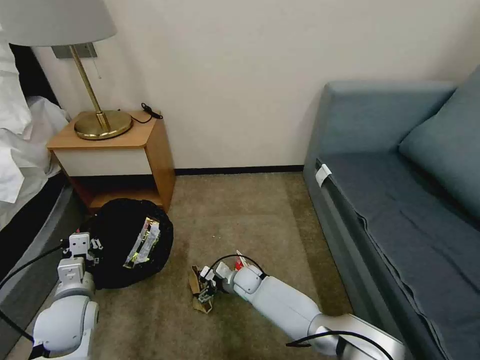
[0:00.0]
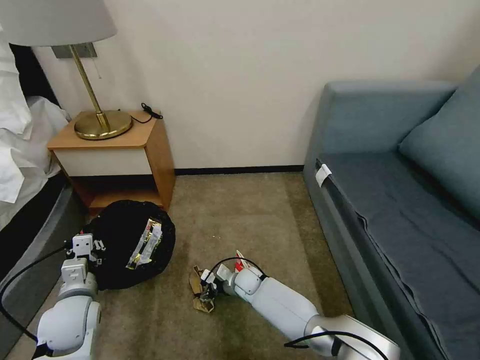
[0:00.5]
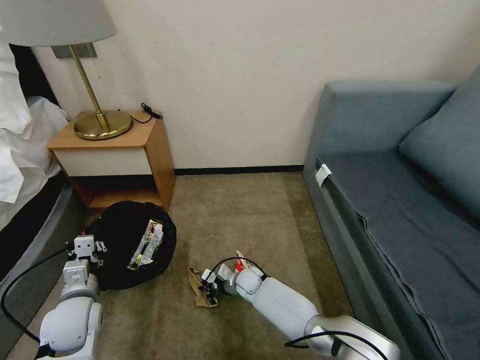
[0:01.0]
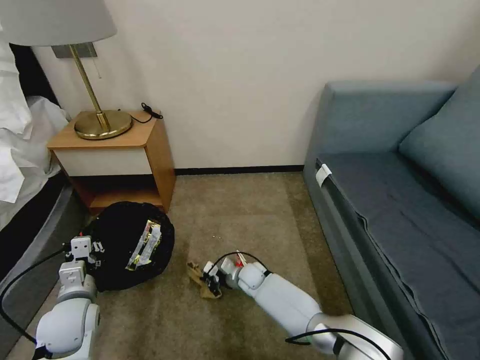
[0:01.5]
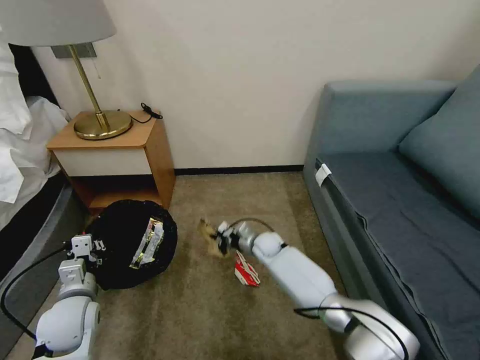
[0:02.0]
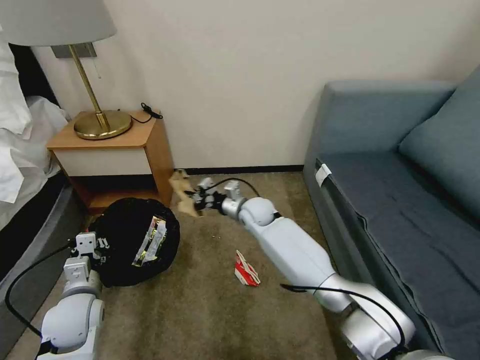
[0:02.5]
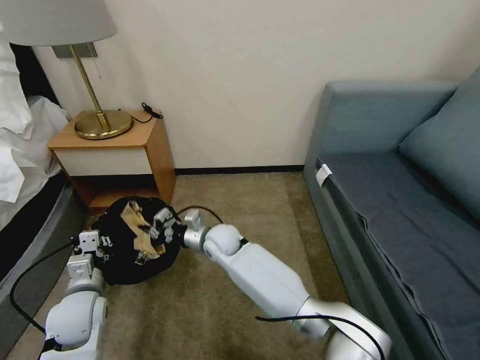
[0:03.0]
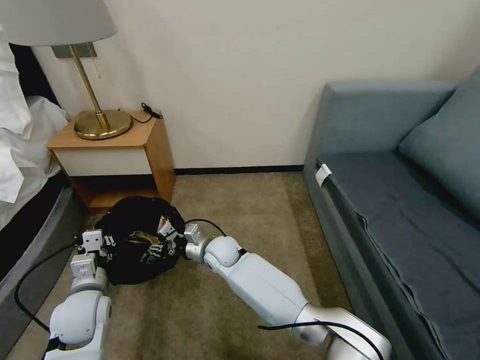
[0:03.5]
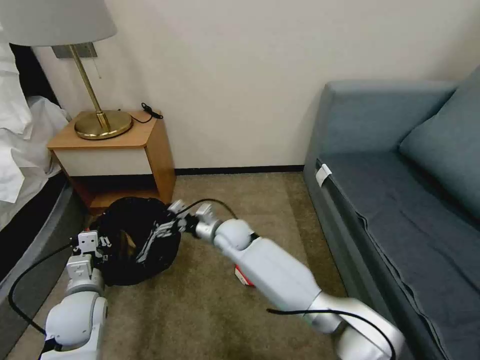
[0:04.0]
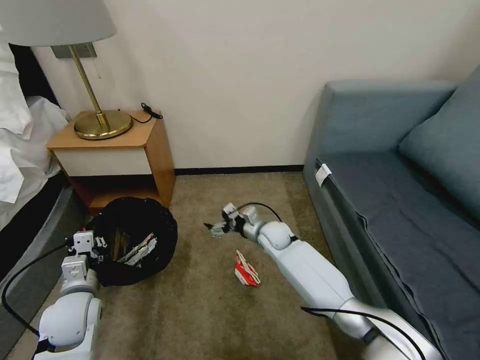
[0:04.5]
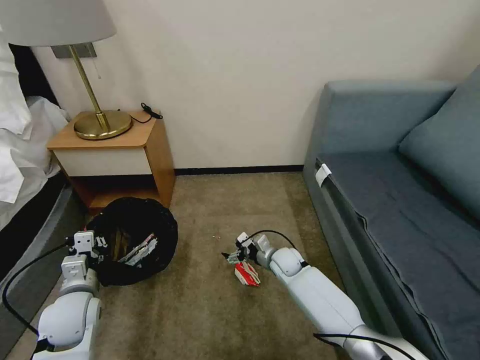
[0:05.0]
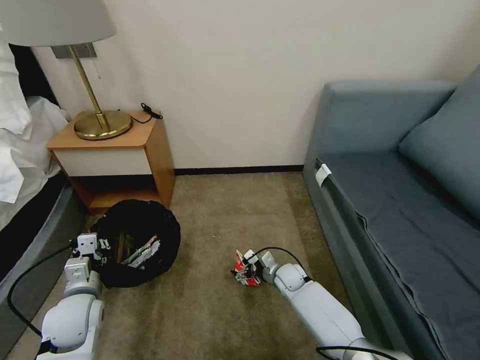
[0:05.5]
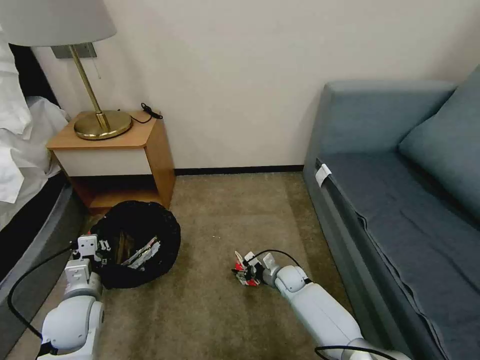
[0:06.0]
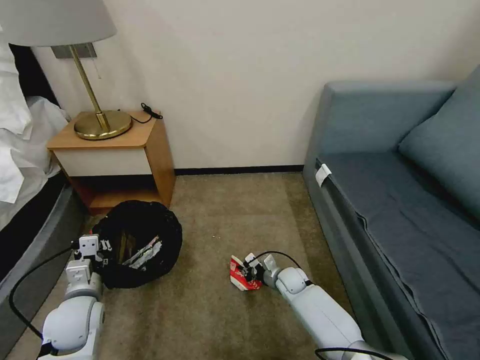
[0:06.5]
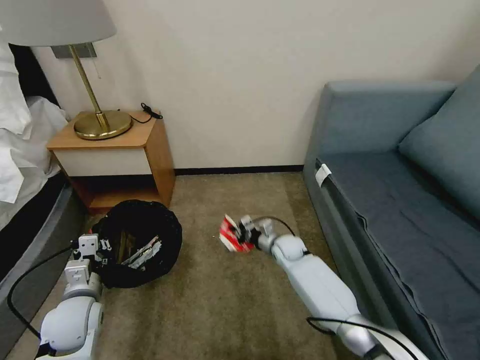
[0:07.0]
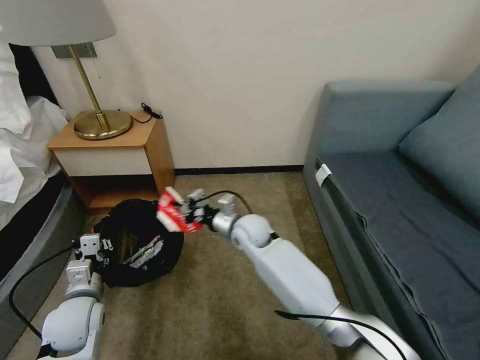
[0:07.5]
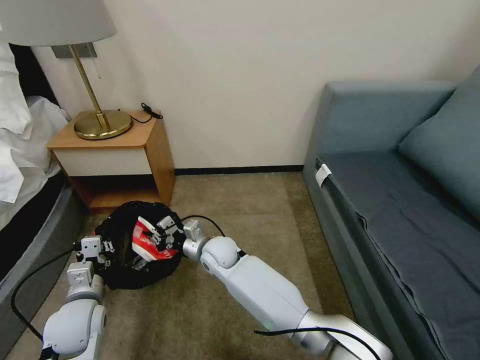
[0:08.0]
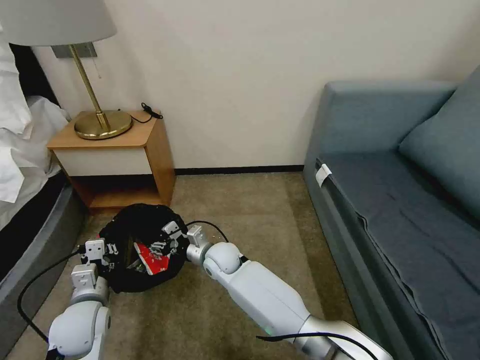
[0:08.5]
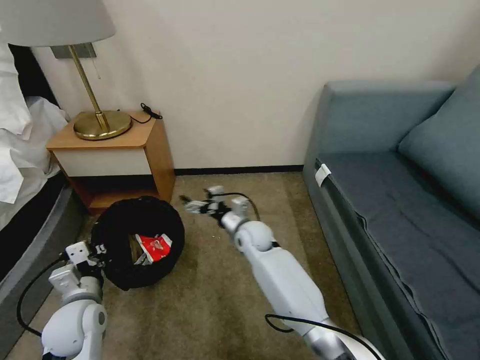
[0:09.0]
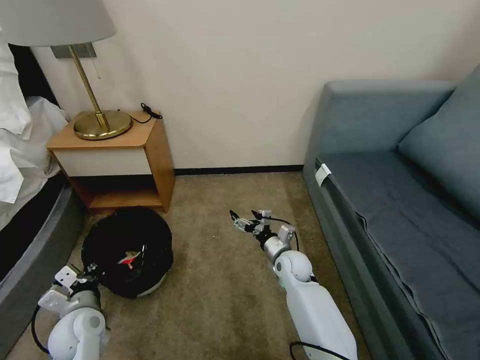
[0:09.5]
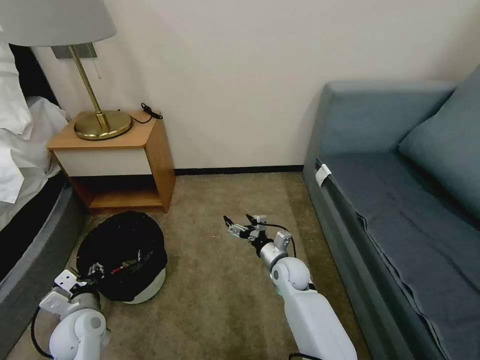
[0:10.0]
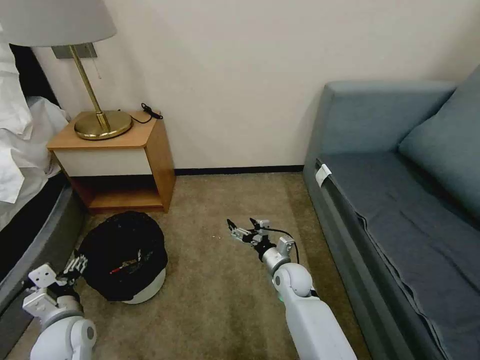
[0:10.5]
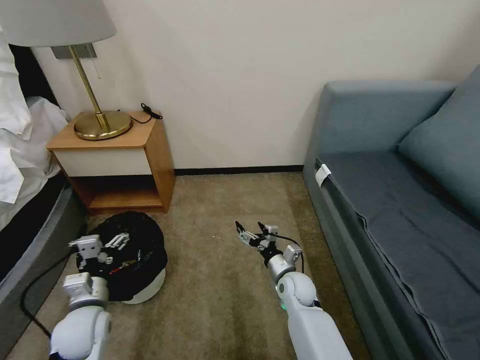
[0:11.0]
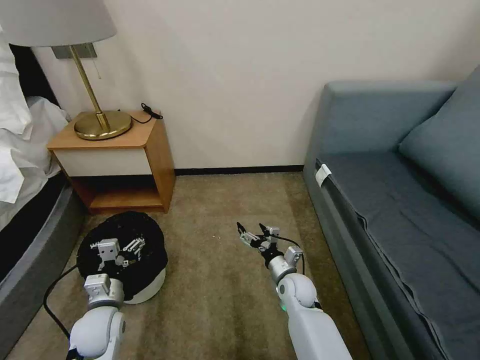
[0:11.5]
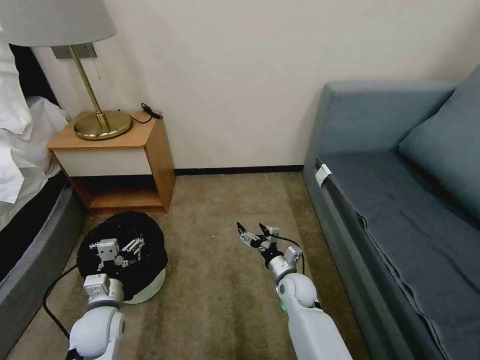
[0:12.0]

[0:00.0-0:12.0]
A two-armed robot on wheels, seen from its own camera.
Task of the whole recording: Pick up the trash bin, then pick up the garbage on the floor and place it into the trash bin.
0:00.0 to 0:02.0: The right gripper shifts about 15 cm forward, upward and to the right, and closes its fingers.
0:02.0 to 0:04.0: The right gripper goes some 15 cm upward and to the left, and opens.
0:04.0 to 0:06.0: The right gripper travels downward and to the right by about 25 cm, and closes.
0:06.0 to 0:08.0: The right gripper moves to the left and upward, about 30 cm, and closes.
0:08.0 to 0:10.0: The left gripper shifts by about 5 cm, and opens. Meanwhile the right gripper is displaced to the right by approximately 20 cm, and opens up.
0:10.0 to 0:12.0: The left gripper opens its fingers.

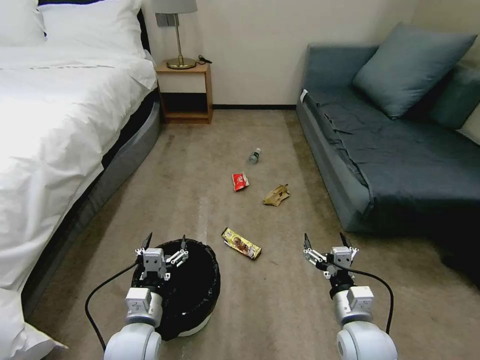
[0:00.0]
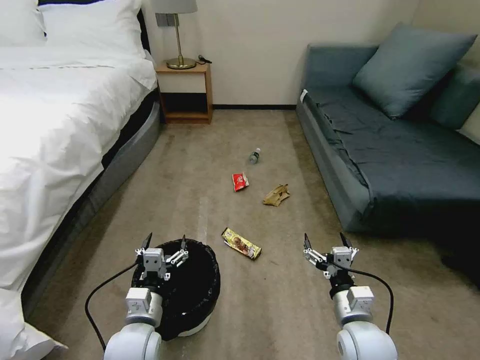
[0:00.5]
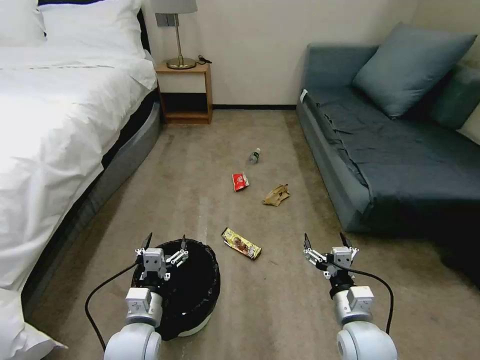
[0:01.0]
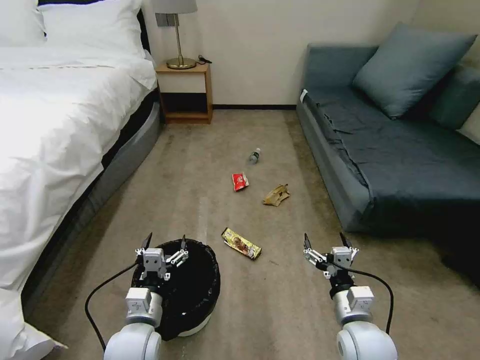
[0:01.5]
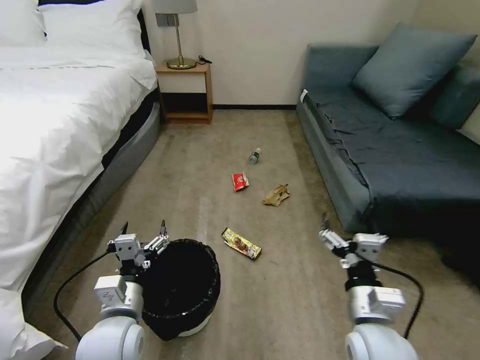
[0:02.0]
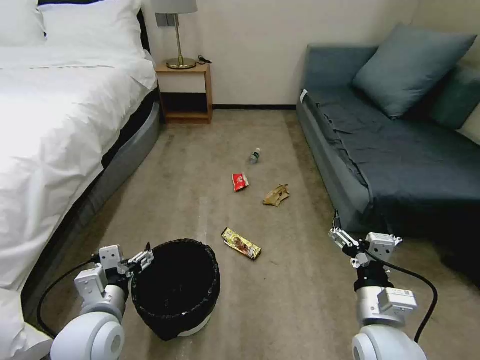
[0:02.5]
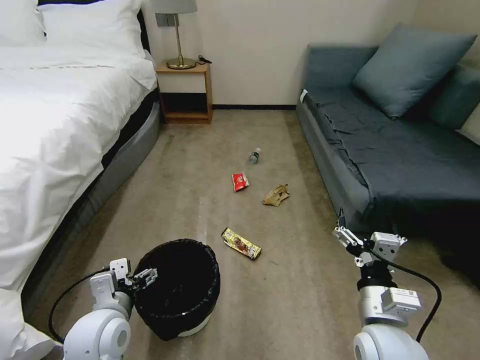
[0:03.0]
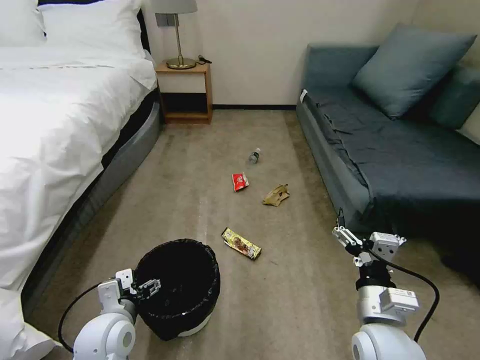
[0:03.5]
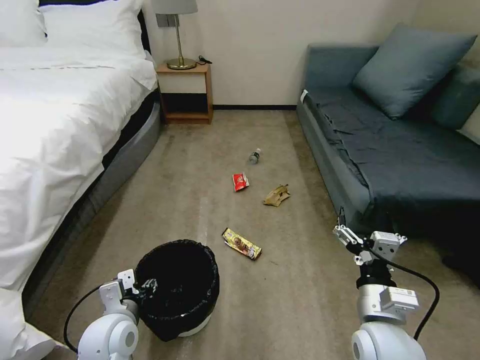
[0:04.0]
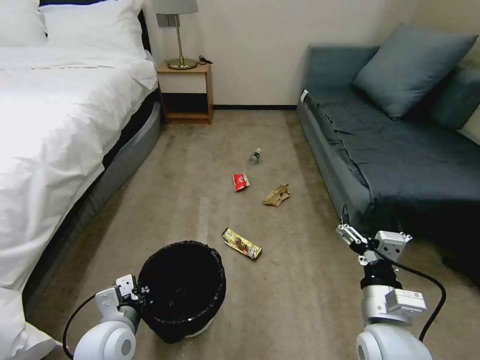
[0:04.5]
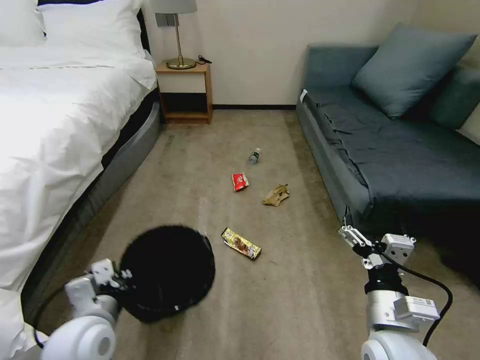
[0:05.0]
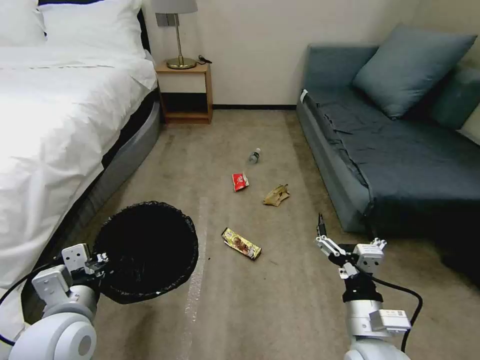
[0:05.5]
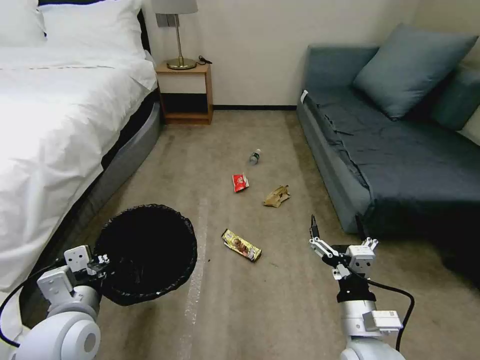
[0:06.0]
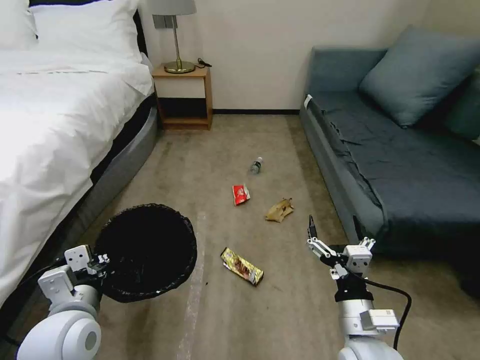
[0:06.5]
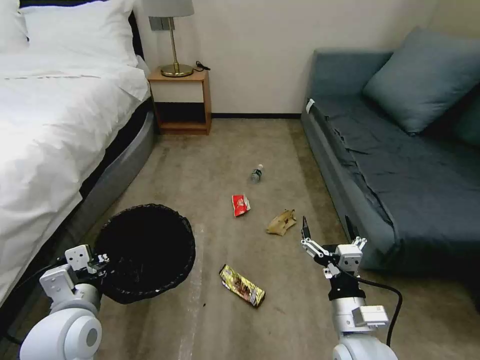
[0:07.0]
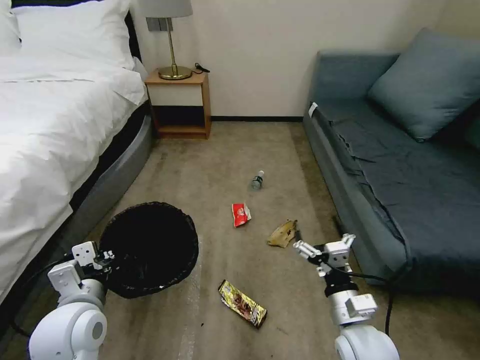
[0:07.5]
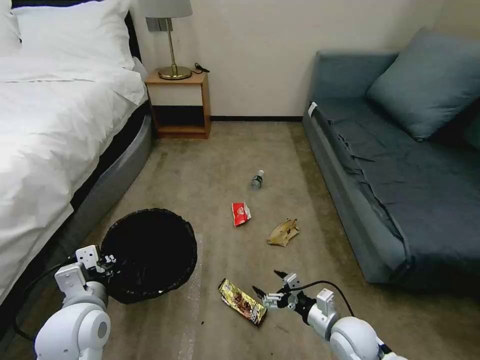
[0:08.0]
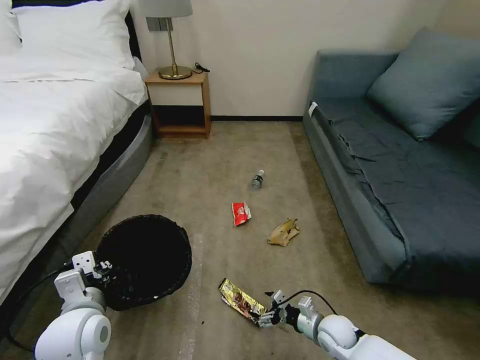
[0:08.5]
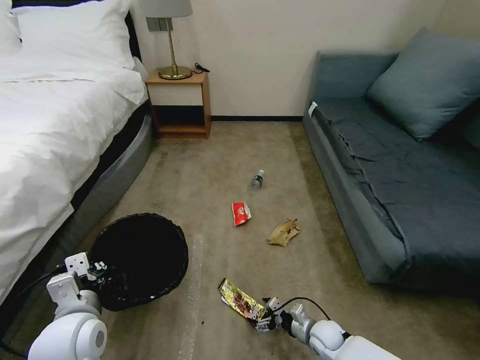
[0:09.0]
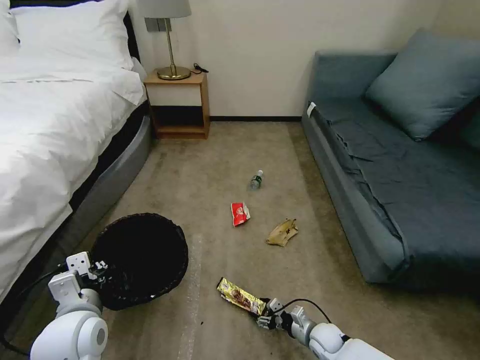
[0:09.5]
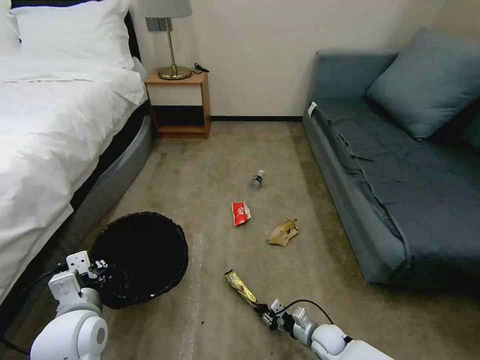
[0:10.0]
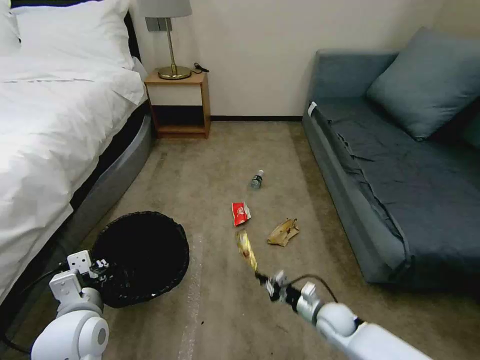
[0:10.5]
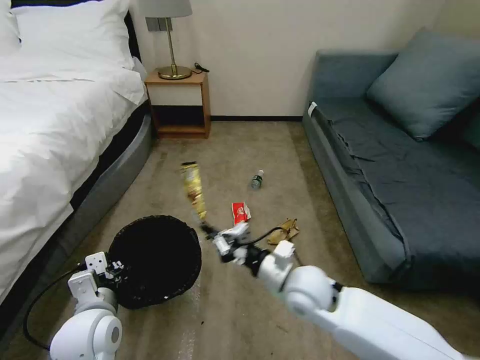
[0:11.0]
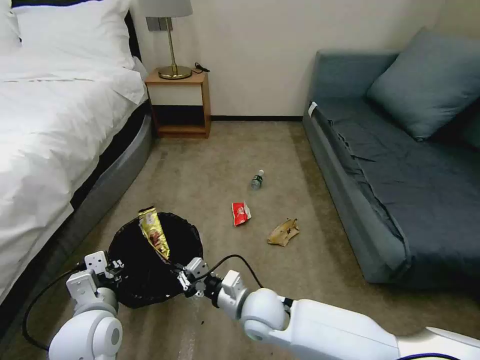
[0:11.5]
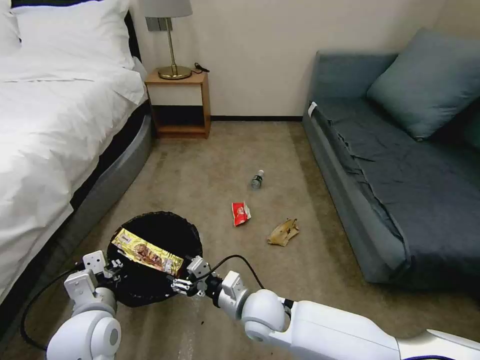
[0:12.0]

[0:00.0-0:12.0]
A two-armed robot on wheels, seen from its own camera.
Task of the whole recording: Pick up the trash bin, then pick up the garbage on the floor and place it into the trash bin.
0:02.0 to 0:04.0: The left gripper ends up about 5 cm from where it was, and closes its fingers.
0:04.0 to 0:06.0: The left gripper heads upward, covering some 10 cm, and closes.
0:06.0 to 0:08.0: The right gripper travels downward and forward by about 15 cm.
0:08.0 to 0:10.0: The right gripper travels downward by some 15 cm, and closes.
0:10.0 to 0:12.0: The right gripper travels upward and to the left by about 30 cm, and opens its fingers.

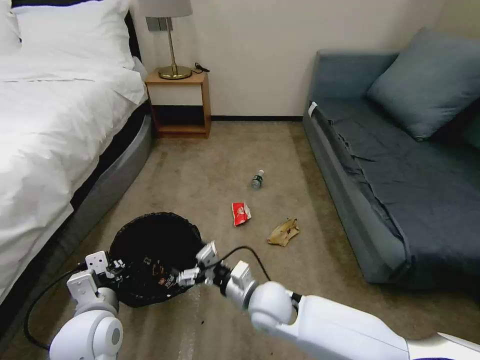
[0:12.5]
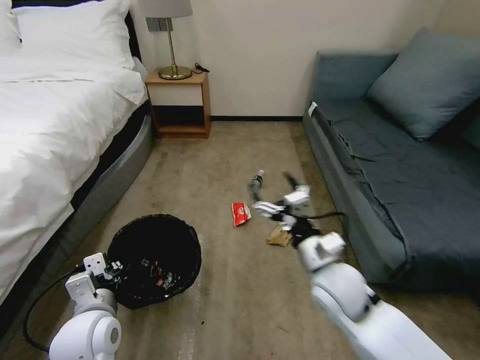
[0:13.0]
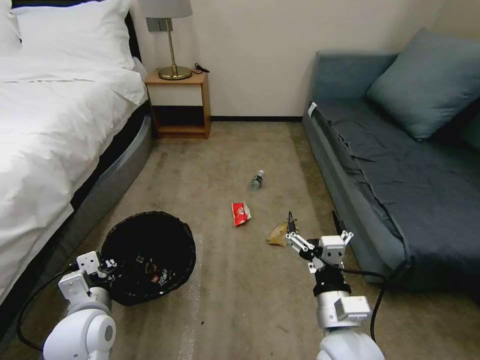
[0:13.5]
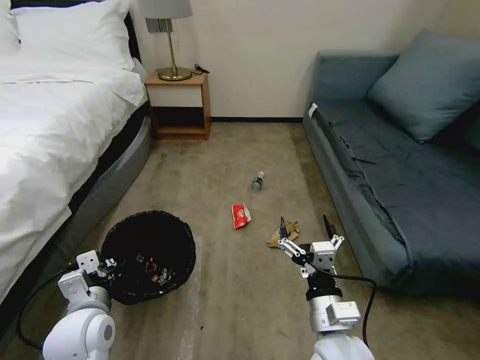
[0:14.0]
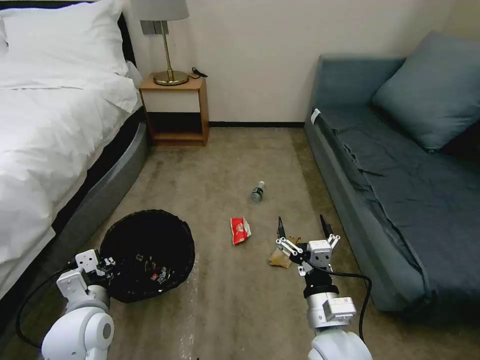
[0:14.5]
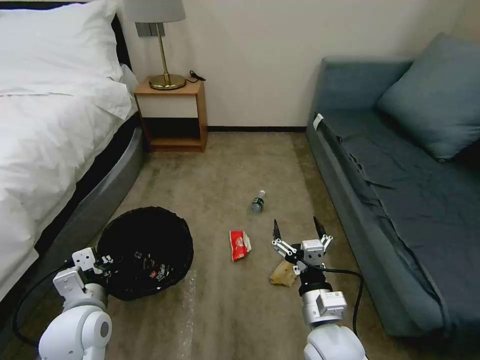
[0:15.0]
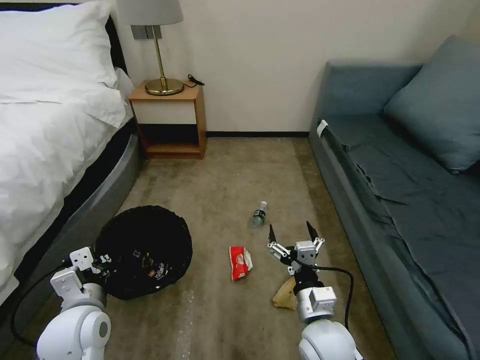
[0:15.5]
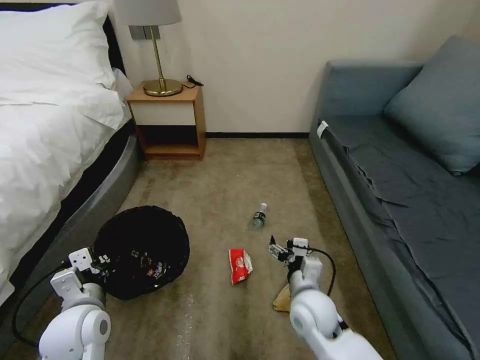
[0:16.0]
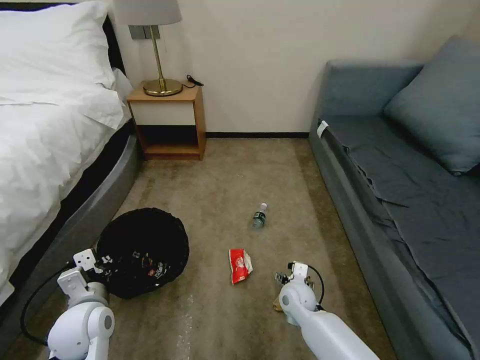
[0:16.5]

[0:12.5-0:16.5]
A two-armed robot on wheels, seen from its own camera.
Task of the whole recording: Pick up the trash bin, then pick up the garbage on the floor and place it into the trash bin.
0:12.5 to 0:14.5: The right gripper goes some 15 cm backward, to the right and upward.
0:14.5 to 0:16.5: The right gripper heads forward and downward, covering some 20 cm.
